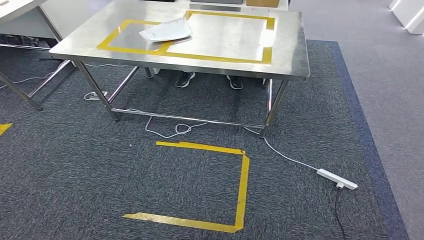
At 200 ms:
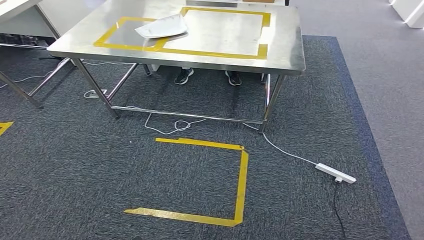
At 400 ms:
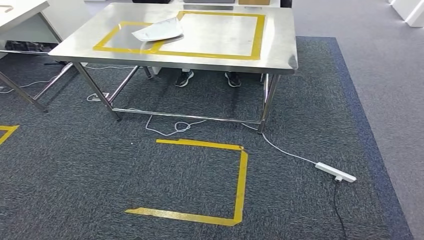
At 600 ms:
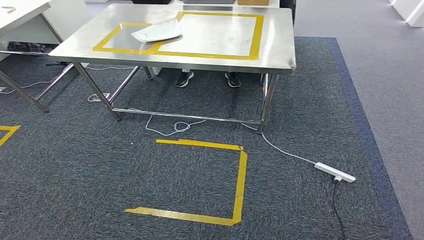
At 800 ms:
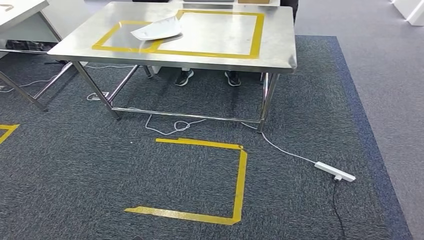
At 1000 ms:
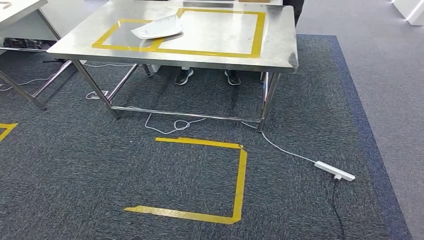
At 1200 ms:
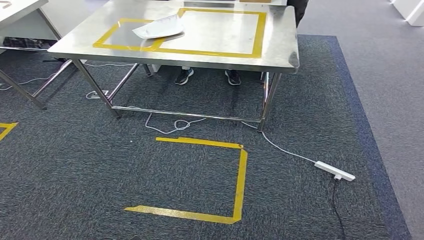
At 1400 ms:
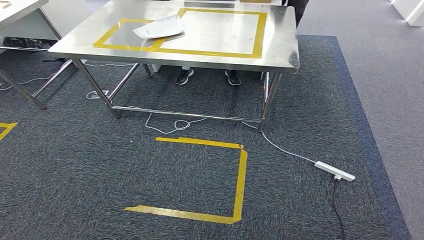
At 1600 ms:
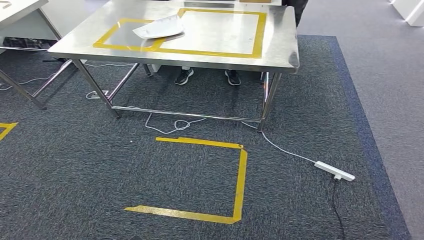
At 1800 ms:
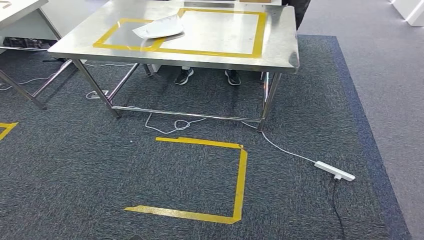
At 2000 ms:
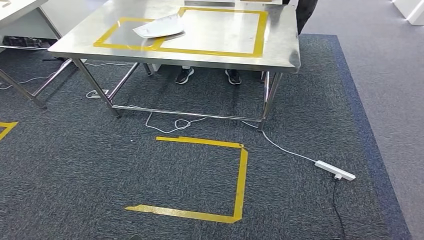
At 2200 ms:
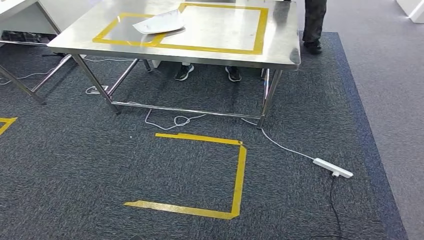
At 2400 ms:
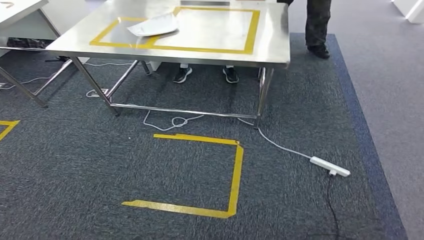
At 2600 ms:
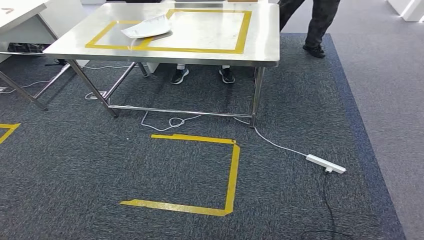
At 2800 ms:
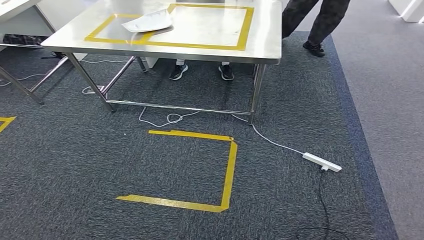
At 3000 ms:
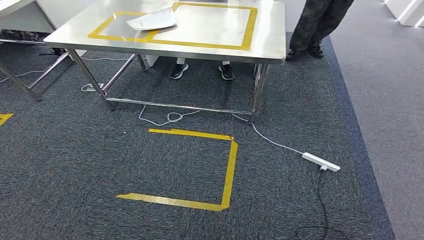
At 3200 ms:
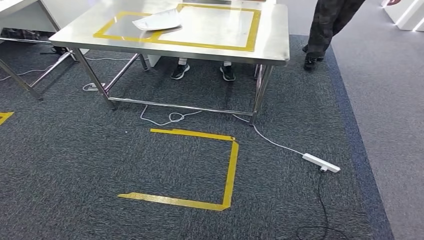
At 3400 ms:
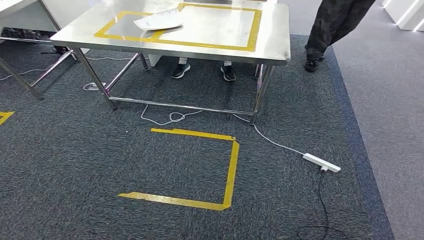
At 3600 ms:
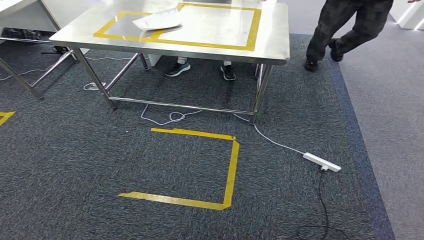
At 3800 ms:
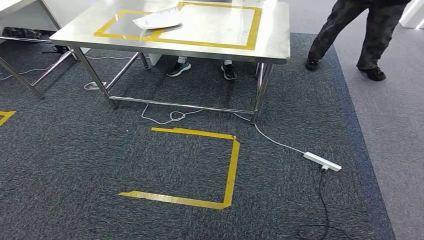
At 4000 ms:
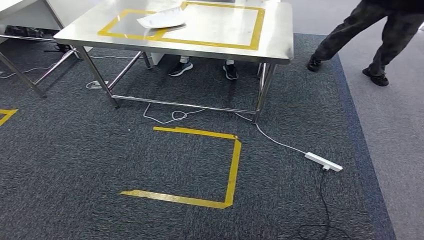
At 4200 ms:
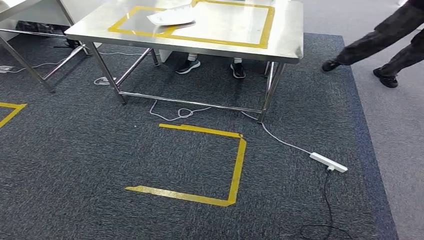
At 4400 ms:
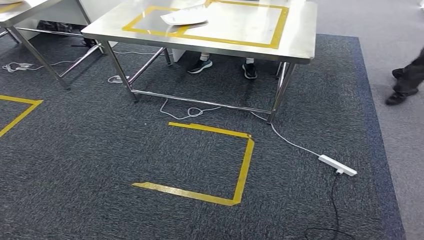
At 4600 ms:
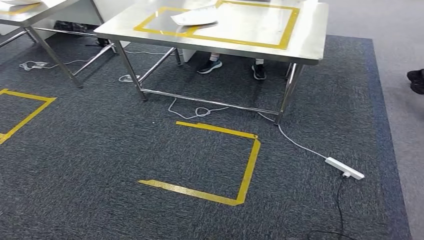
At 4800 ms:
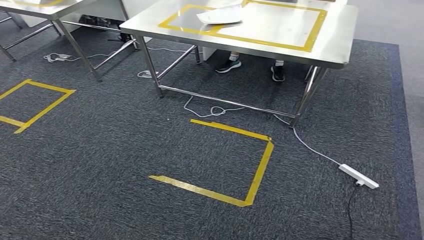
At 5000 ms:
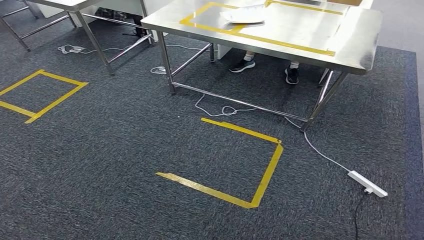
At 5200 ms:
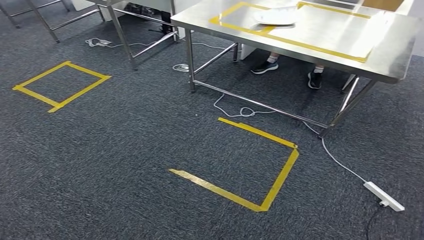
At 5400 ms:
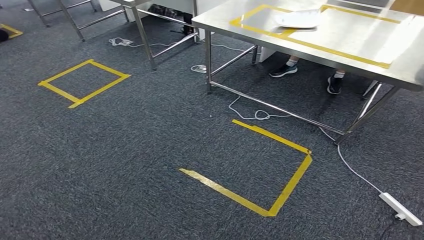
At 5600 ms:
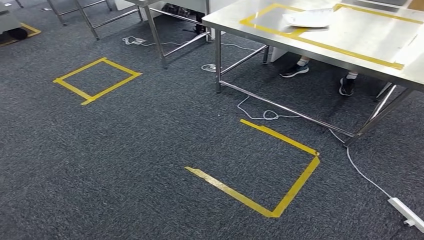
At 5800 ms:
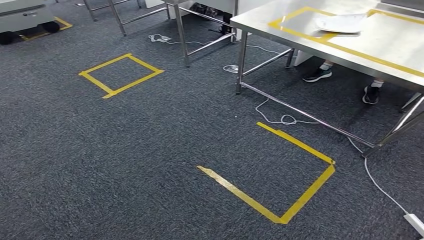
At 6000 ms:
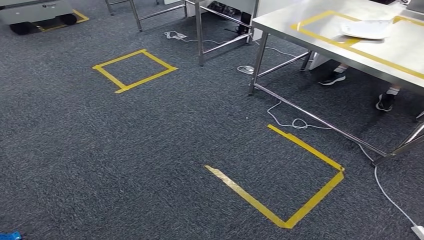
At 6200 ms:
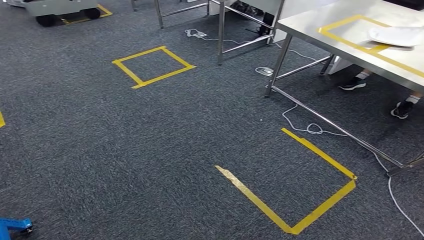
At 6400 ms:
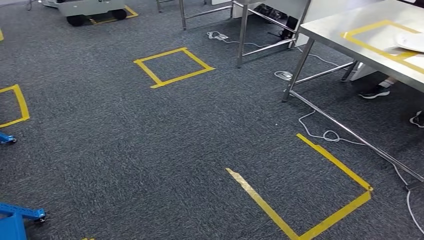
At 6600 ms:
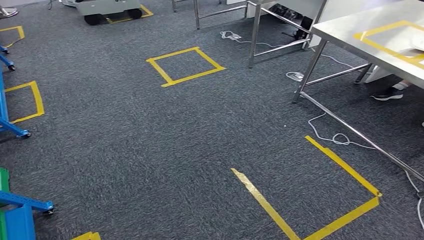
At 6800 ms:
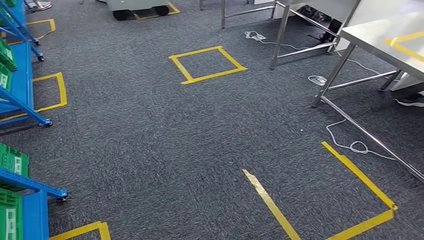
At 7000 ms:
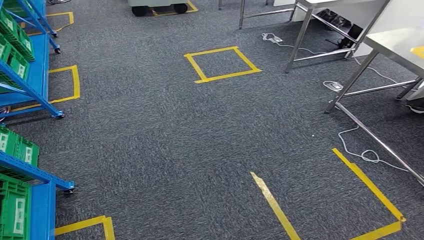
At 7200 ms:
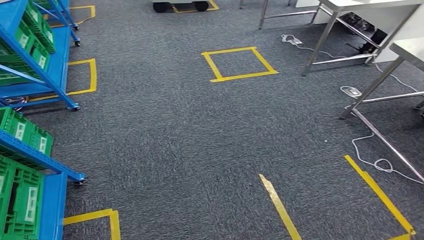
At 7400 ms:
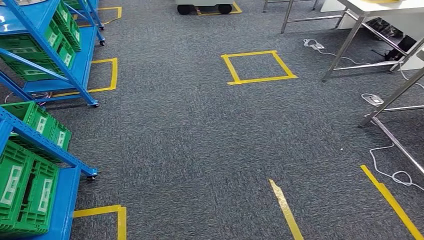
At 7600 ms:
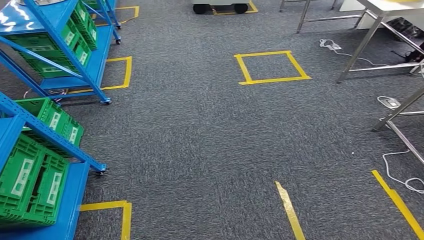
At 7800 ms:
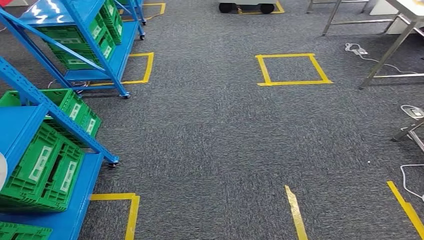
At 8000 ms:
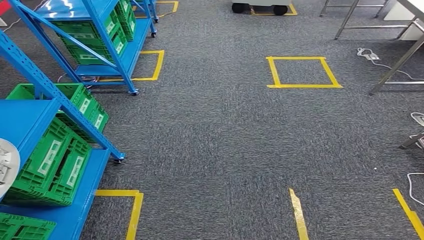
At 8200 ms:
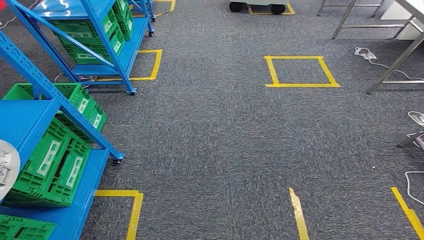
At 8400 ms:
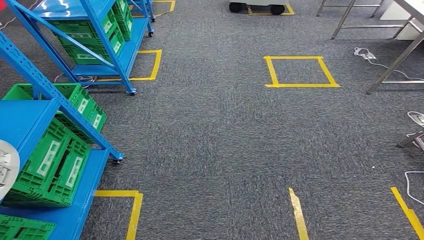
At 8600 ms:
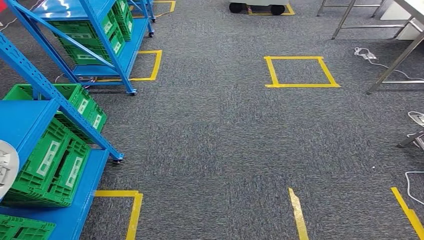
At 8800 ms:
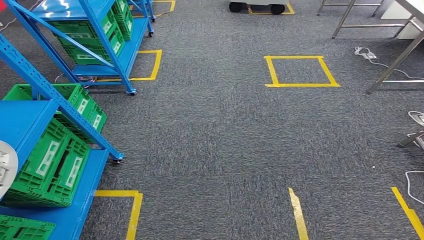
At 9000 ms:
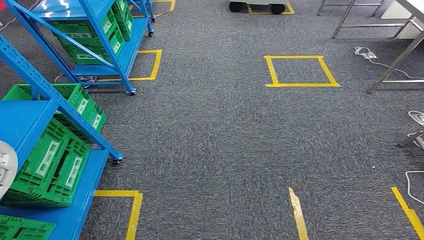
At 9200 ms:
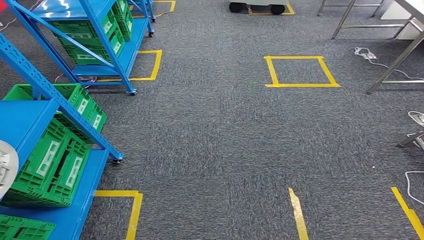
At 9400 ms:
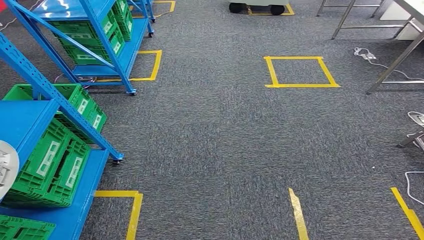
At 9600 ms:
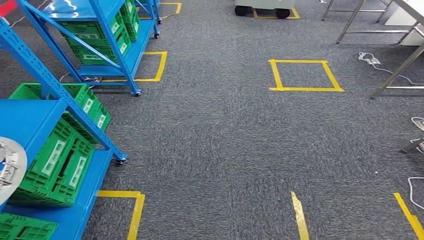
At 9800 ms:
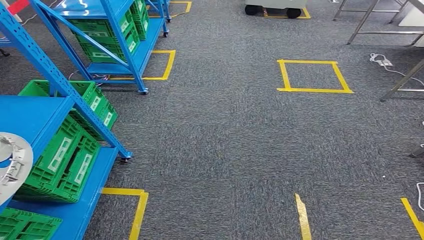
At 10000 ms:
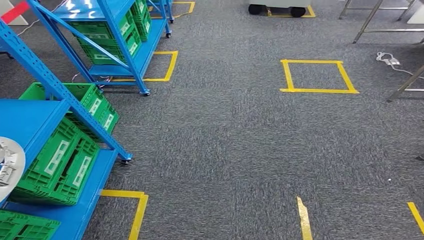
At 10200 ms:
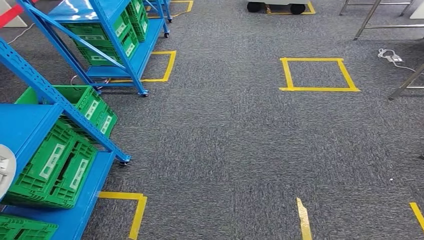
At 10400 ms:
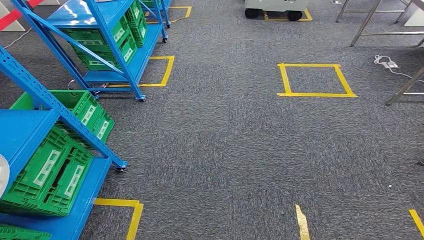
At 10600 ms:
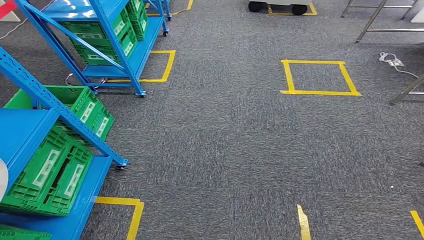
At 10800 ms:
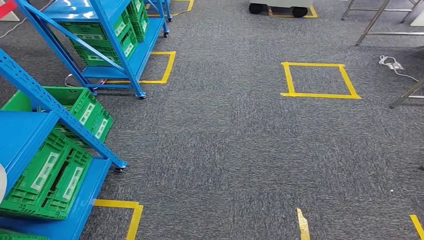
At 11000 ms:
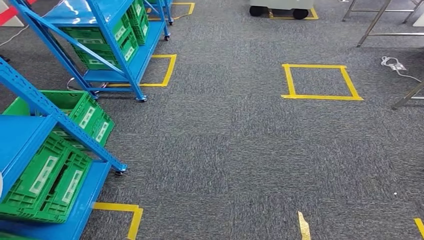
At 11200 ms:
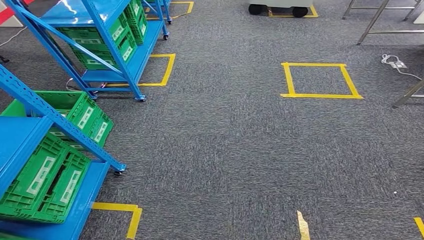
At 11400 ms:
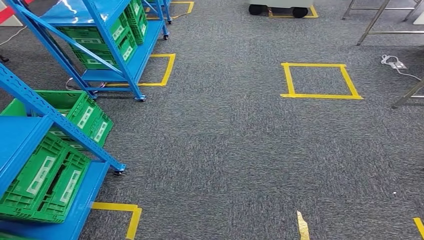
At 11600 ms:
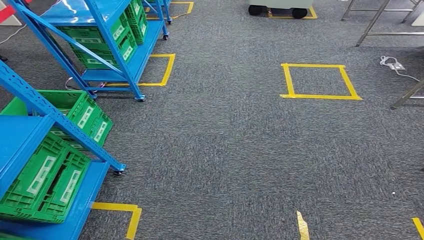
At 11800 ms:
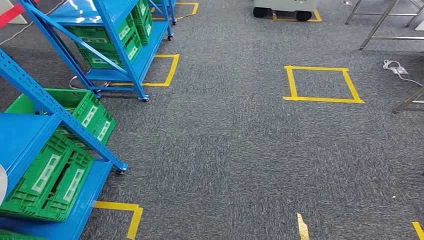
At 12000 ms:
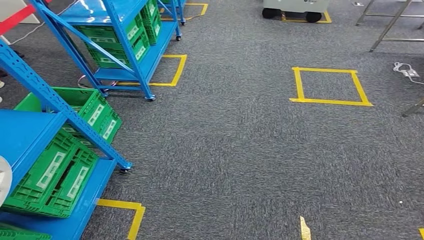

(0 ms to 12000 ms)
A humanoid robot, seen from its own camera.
0 ms - 1600 ms: The hands stay close to where they were, moving slightly.
10400 ms - 12000 ms: Both hands stay put.

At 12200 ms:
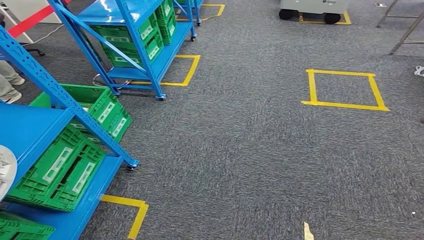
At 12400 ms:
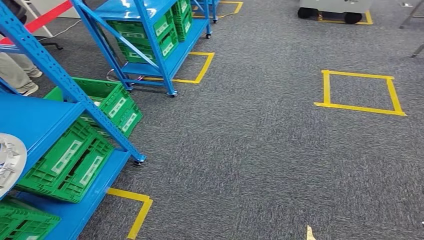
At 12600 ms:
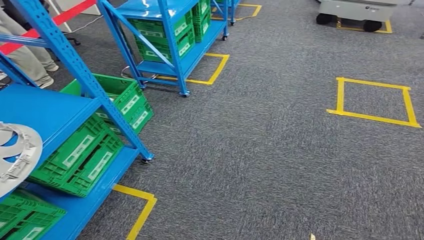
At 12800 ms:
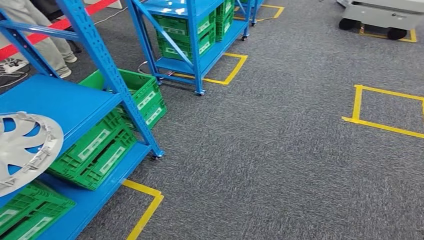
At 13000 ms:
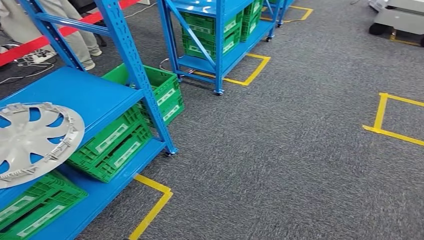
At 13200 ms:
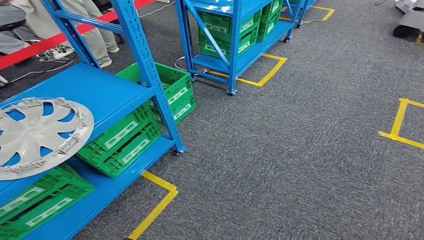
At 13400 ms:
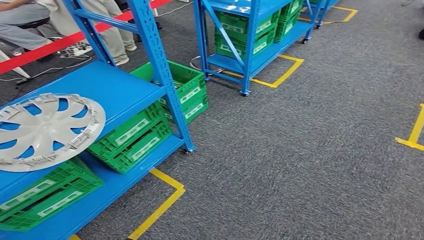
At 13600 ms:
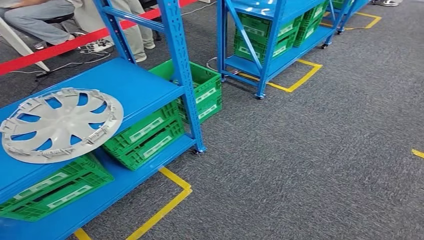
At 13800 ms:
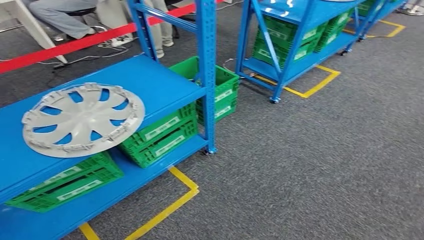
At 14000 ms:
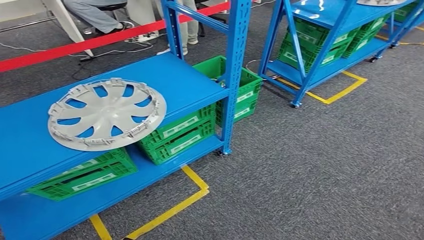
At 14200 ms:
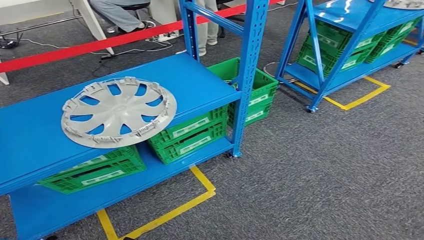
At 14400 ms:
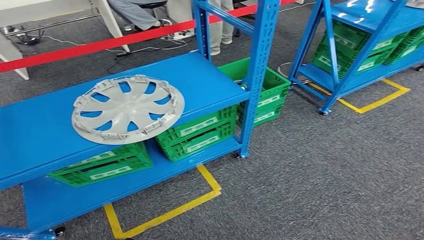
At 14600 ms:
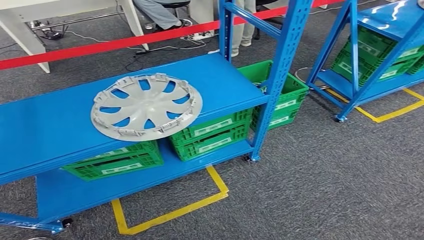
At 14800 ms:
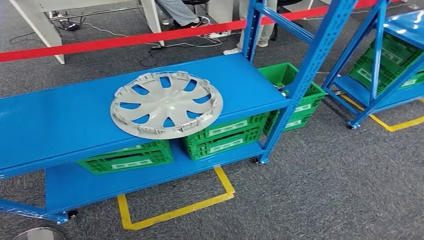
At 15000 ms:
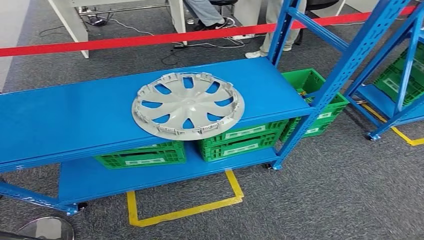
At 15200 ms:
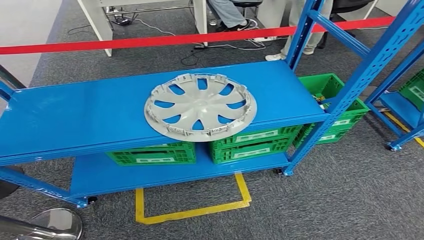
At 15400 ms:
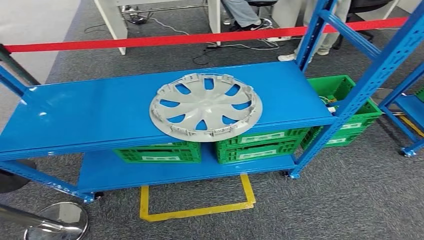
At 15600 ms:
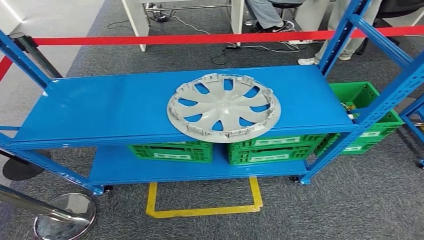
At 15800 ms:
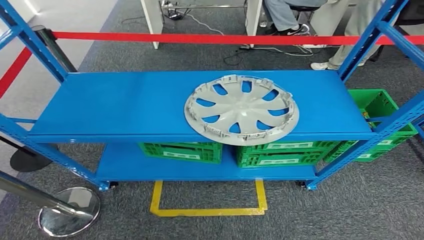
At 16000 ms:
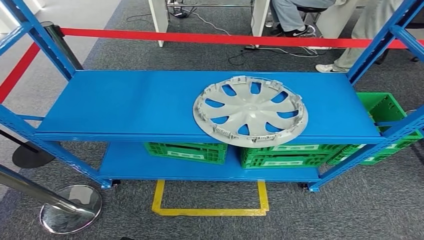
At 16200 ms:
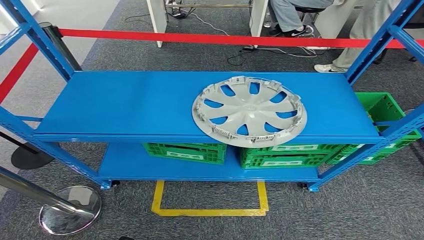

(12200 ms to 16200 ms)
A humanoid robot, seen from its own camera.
Step, 12200 ms - 16200 ms: Return to the initial position at the workbench.
